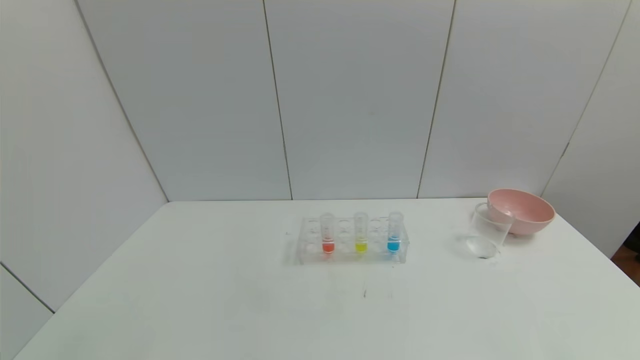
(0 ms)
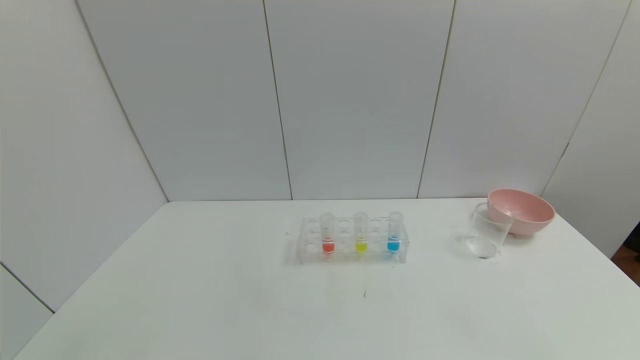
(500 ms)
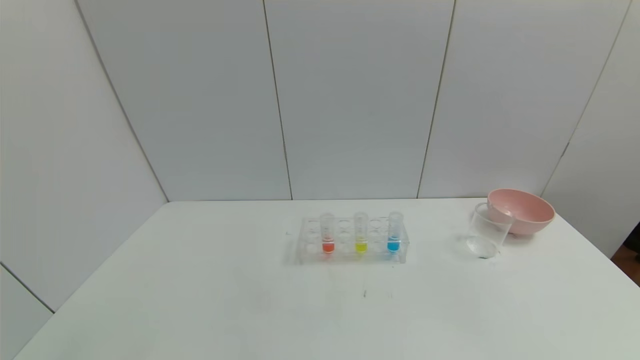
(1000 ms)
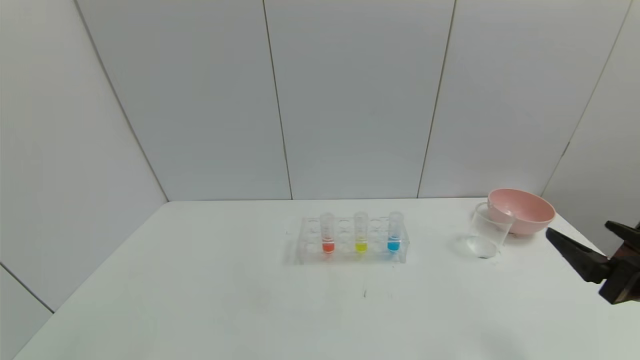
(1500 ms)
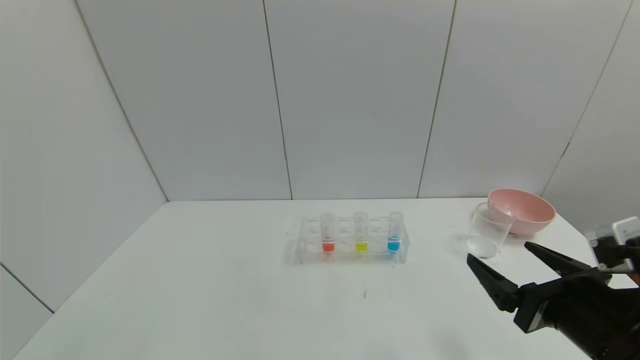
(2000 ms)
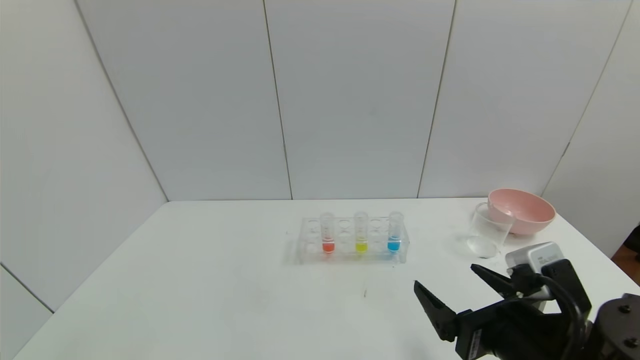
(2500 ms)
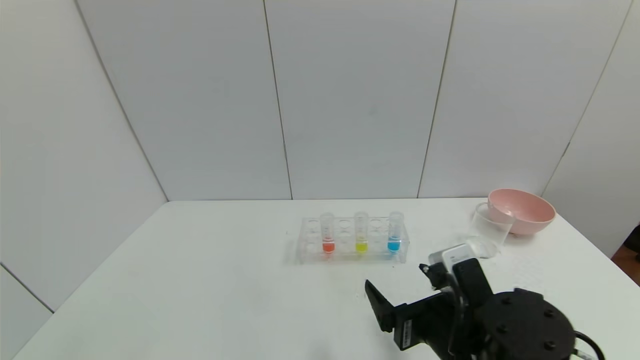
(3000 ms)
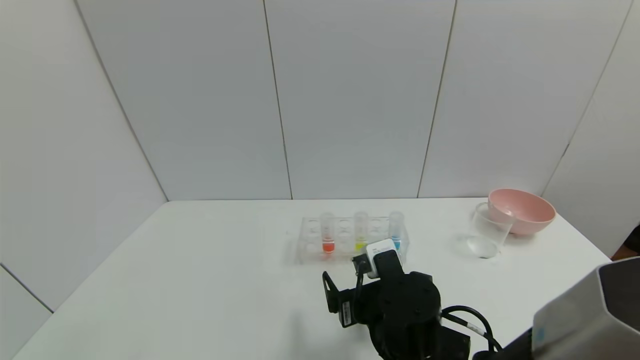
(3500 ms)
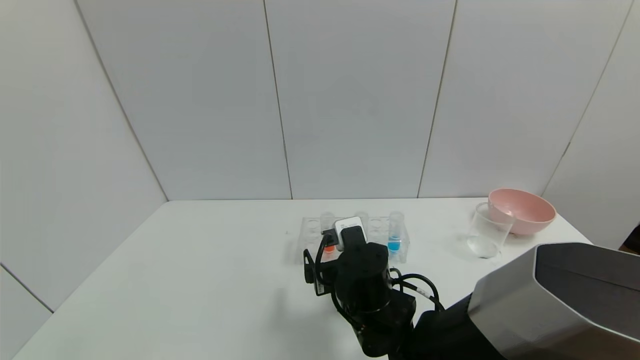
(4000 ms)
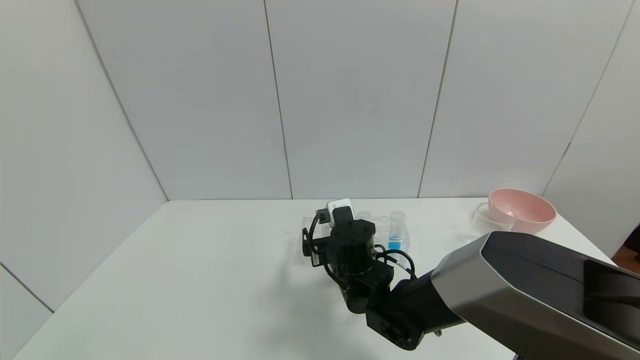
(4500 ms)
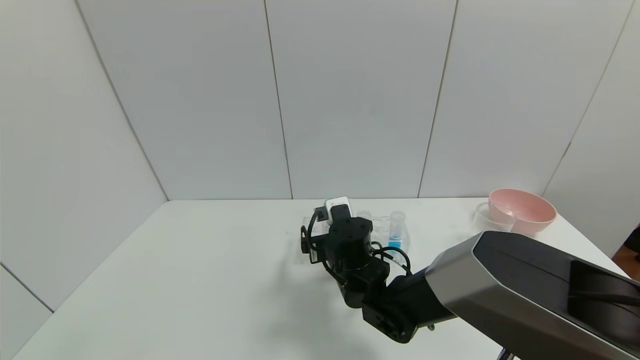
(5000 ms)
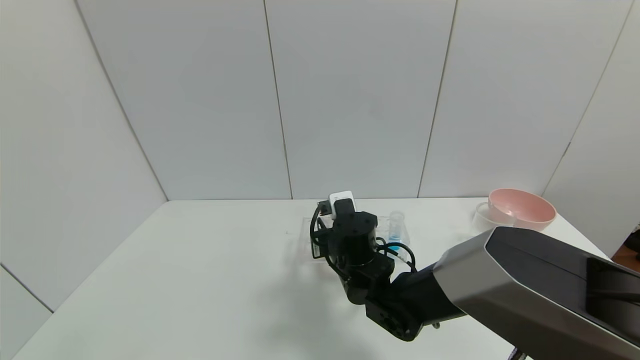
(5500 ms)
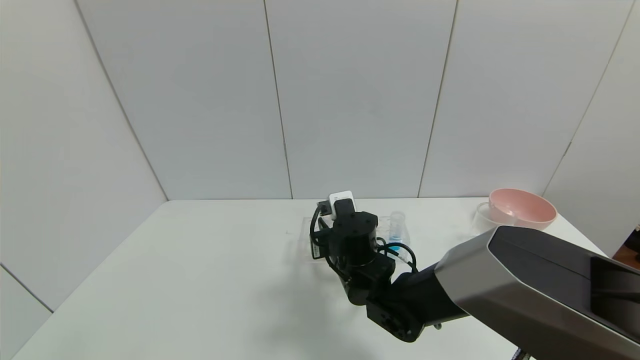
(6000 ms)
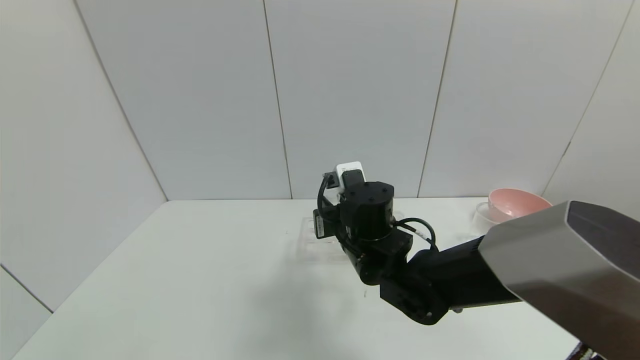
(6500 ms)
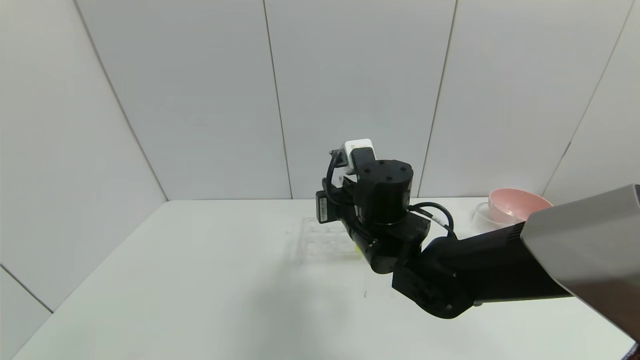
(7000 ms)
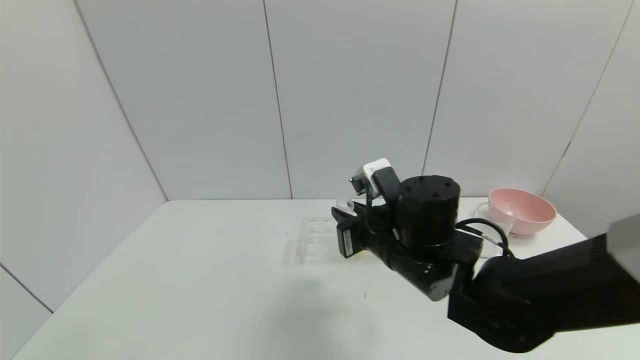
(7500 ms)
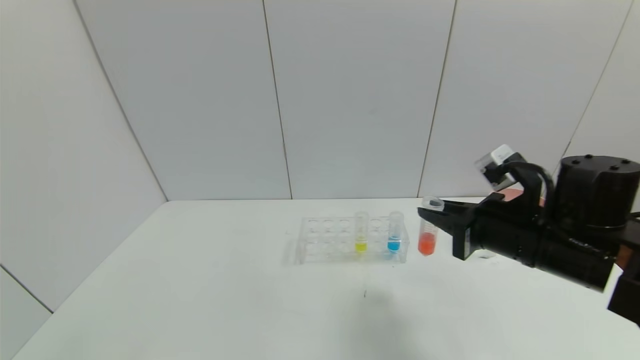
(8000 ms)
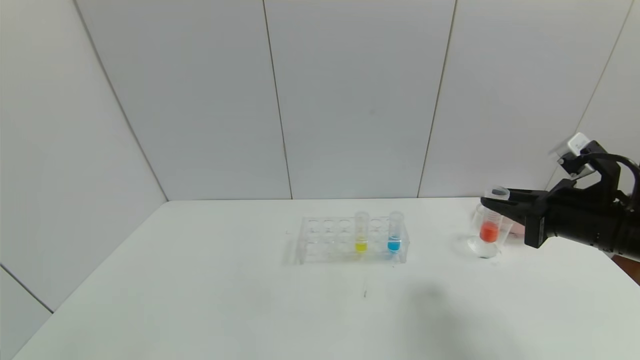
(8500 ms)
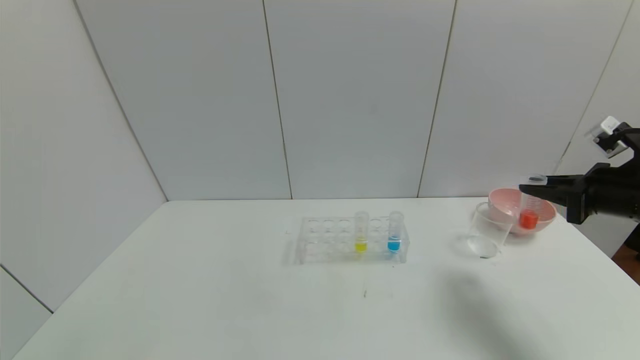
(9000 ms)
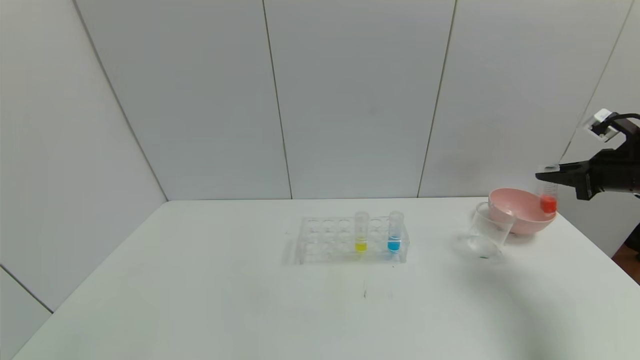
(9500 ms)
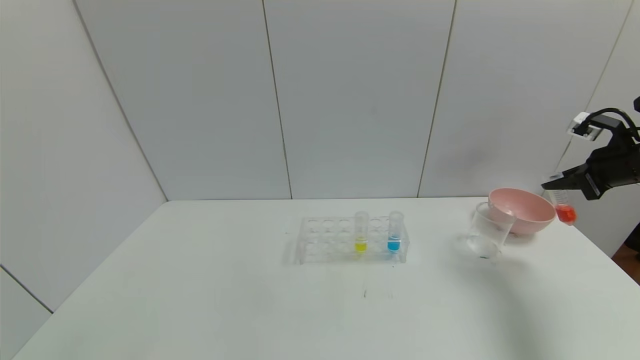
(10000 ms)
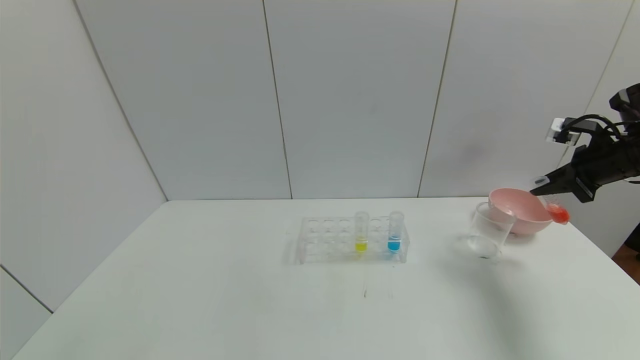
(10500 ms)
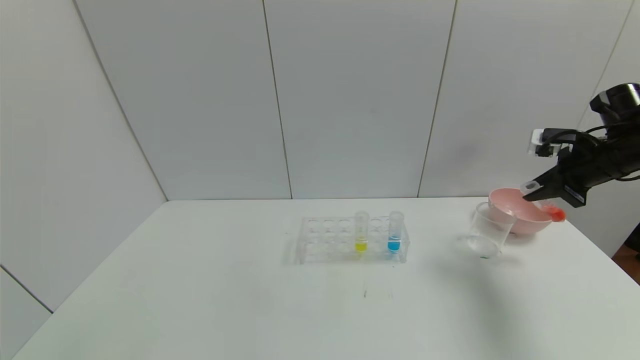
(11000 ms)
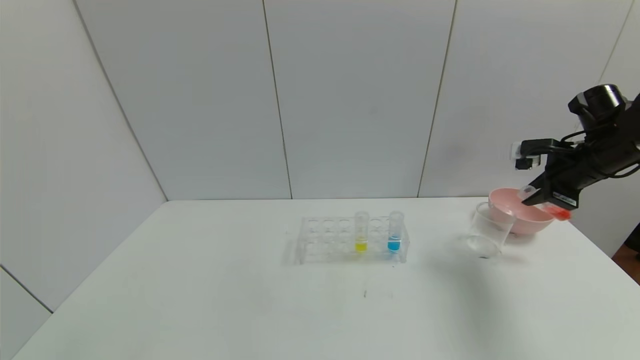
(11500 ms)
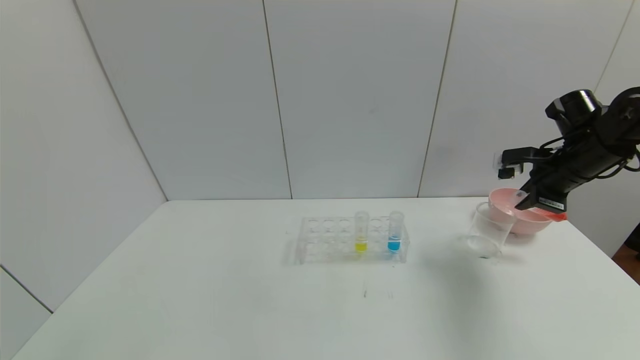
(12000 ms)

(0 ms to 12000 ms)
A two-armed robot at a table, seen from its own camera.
Task of the whole recording: pick up the test tube with red pigment and the test tube with blue pigment by grippers and pour them into the container.
Step, 0 ms - 5500 ms: Grasp the red reagent with the right gripper.
0 ms - 2000 ms: The right gripper is displaced forward, to the left and upward by roughly 20 cm.
2000 ms - 4000 ms: The right gripper goes about 25 cm to the left and forward.
4000 ms - 6000 ms: The right gripper goes some 5 cm forward, and closes.
6000 ms - 8000 ms: The right gripper travels to the right and upward by about 25 cm.
8000 ms - 10000 ms: The right gripper travels to the right and forward by about 25 cm.
10000 ms - 12000 ms: The right gripper is displaced to the left by about 10 cm.

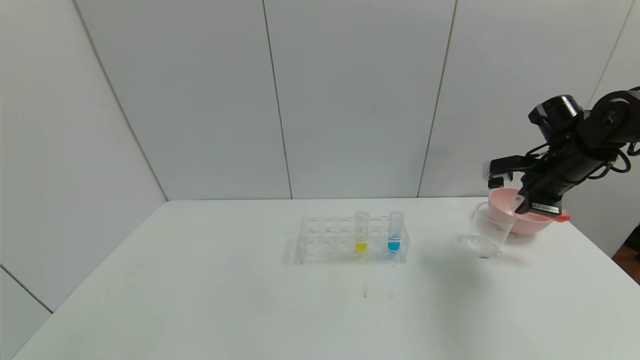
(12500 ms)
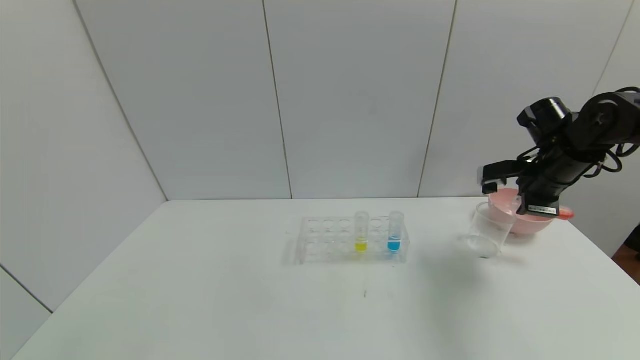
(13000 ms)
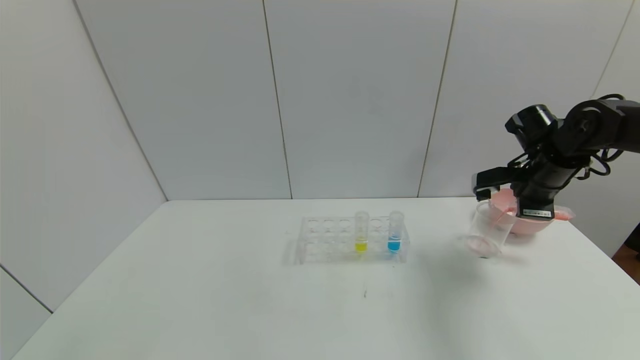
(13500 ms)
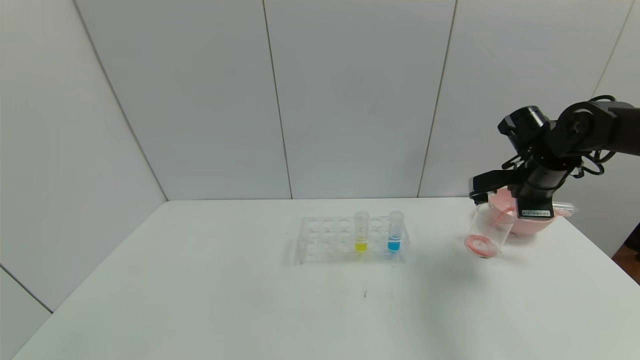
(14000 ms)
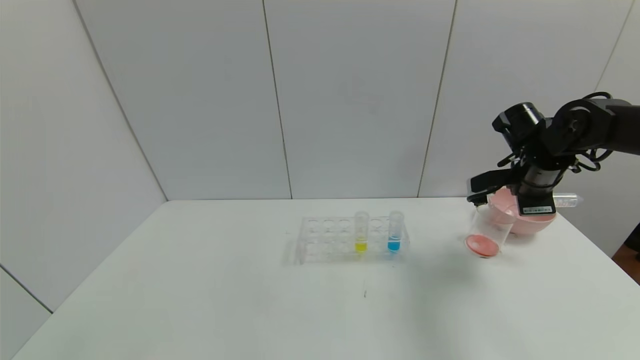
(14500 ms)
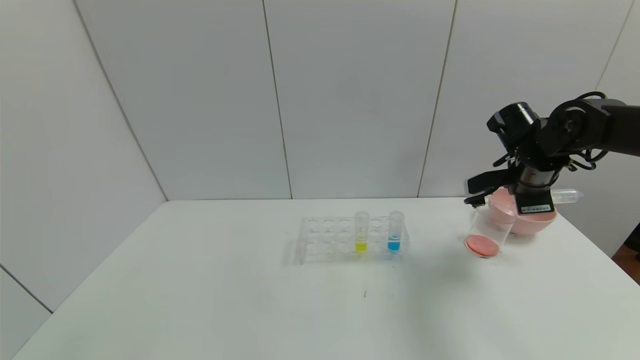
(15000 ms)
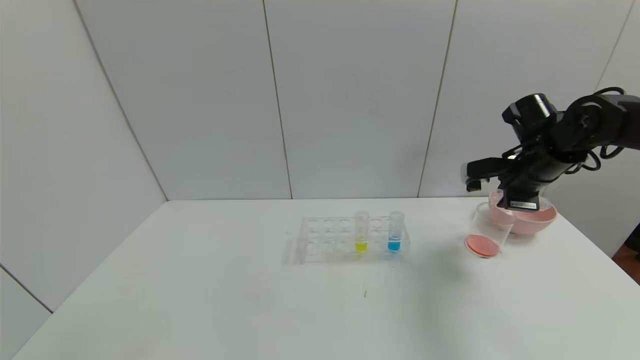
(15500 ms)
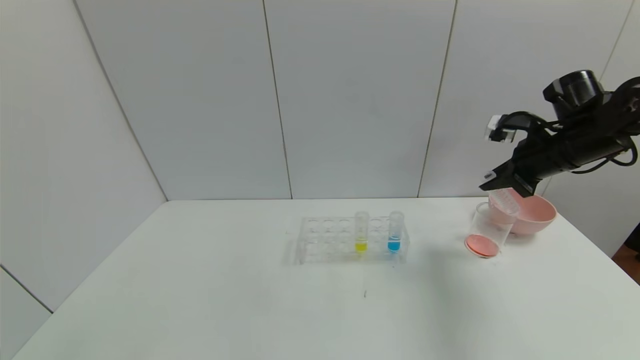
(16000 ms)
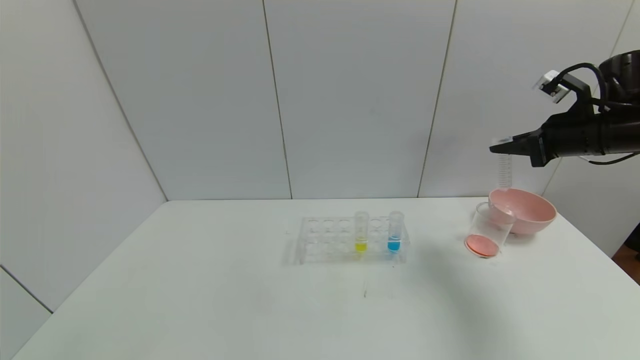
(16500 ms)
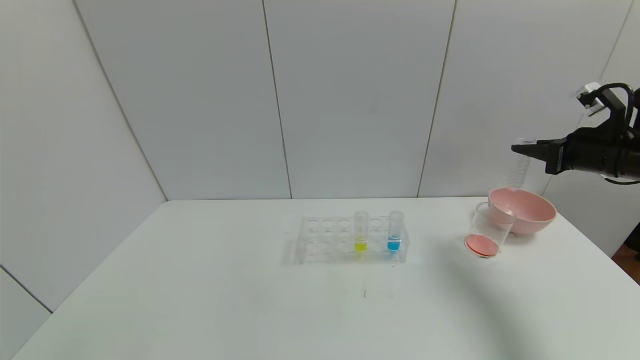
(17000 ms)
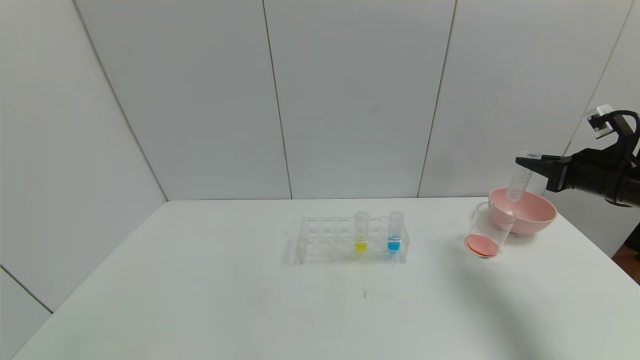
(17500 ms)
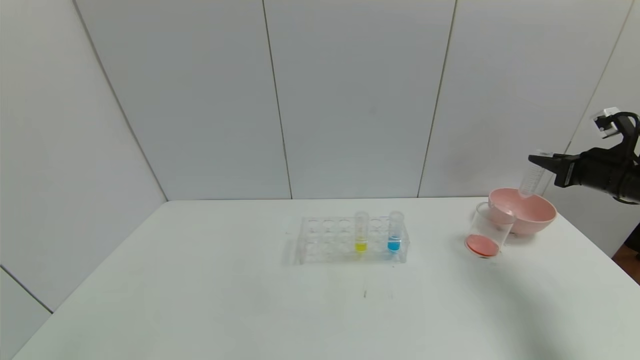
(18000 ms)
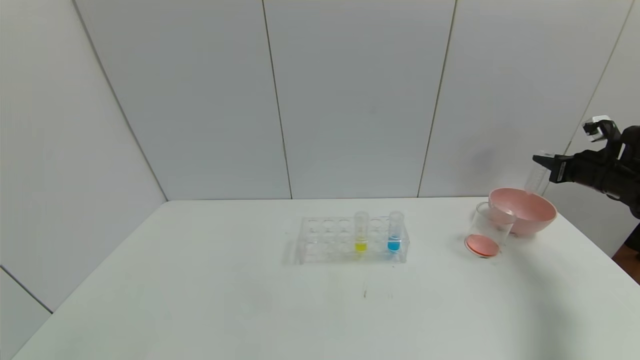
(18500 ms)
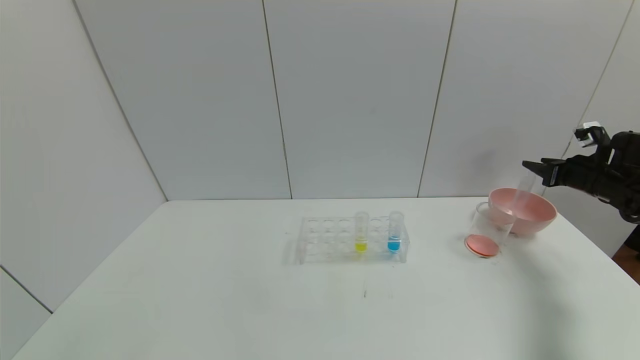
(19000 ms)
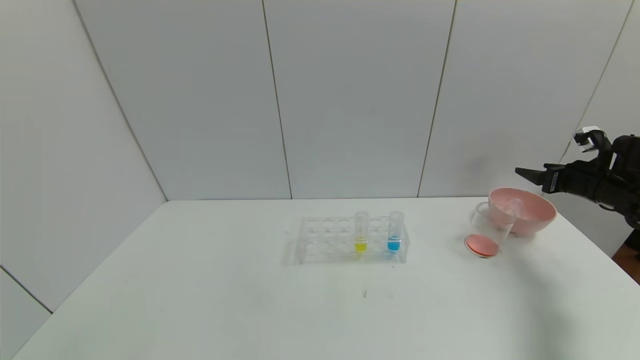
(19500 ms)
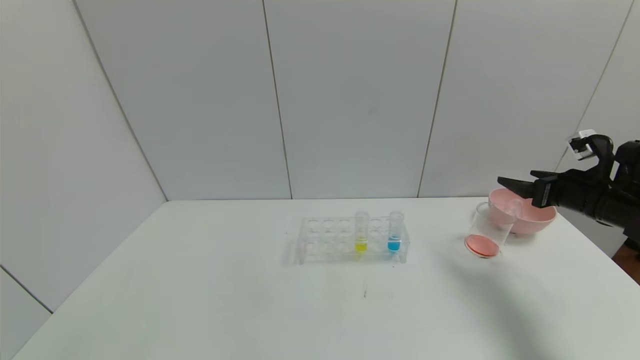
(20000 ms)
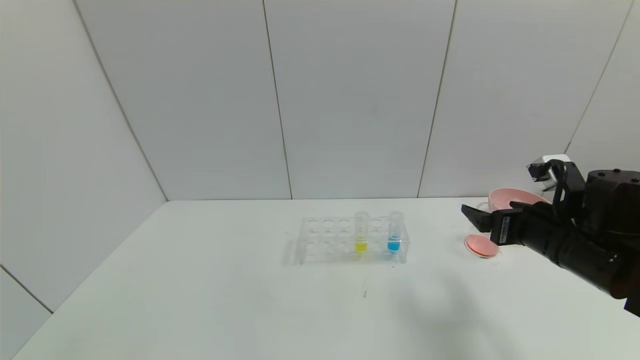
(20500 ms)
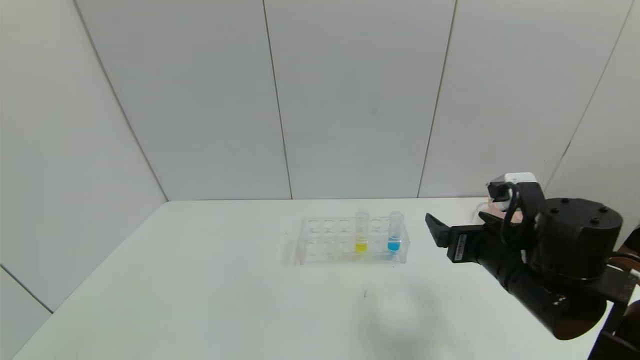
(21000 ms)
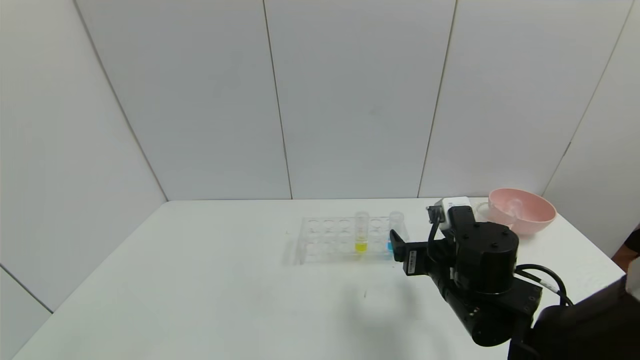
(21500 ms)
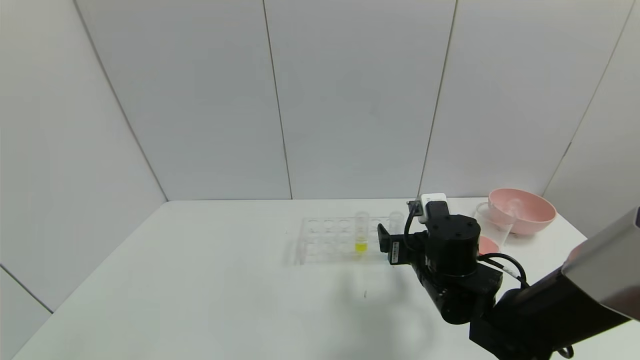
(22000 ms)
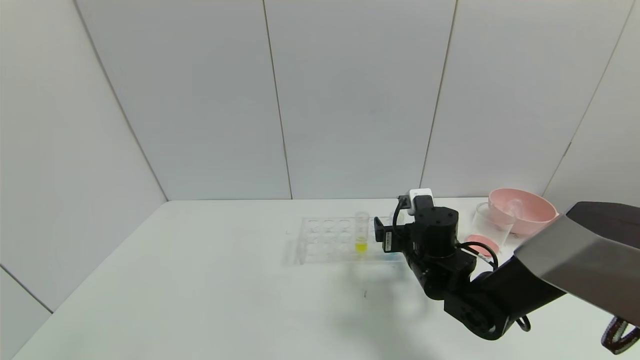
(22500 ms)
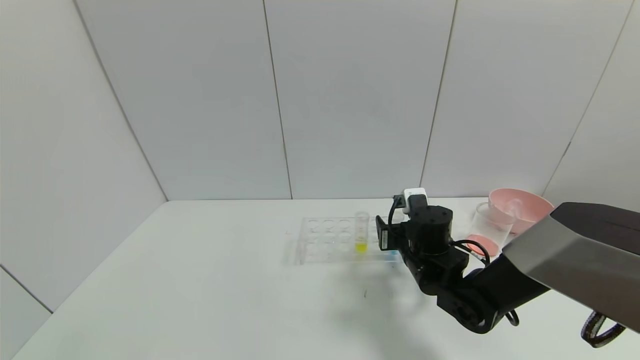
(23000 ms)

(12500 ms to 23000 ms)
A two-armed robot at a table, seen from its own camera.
Task of the whole recording: pick up the test tube with red pigment and the test tube with blue pigment by grippers and pour them into the container.
Step, 12500 ms - 14500 ms: Pour the red reagent into the graduated cylinder with the right gripper.
Step, 15000 ms - 19000 ms: Place the test tube into the bowl with the right gripper.
14500 ms - 16500 ms: The right gripper goes some 10 cm upward and to the right.
16500 ms - 19000 ms: The right gripper travels to the right, downward and forward by roughly 20 cm, and opens up.
19000 ms - 21000 ms: The right gripper heads to the left and backward, covering roughly 35 cm, and opens up.
21000 ms - 23000 ms: The right gripper moves forward, downward and to the left, roughly 15 cm, and closes up.
